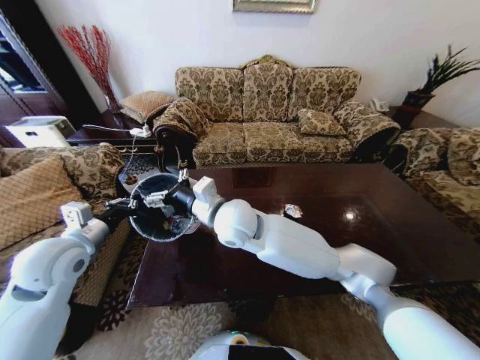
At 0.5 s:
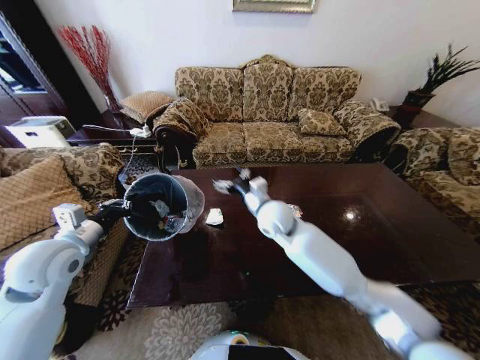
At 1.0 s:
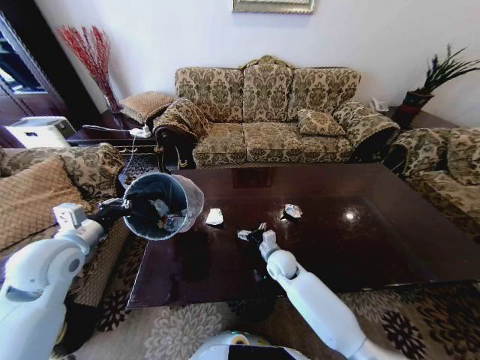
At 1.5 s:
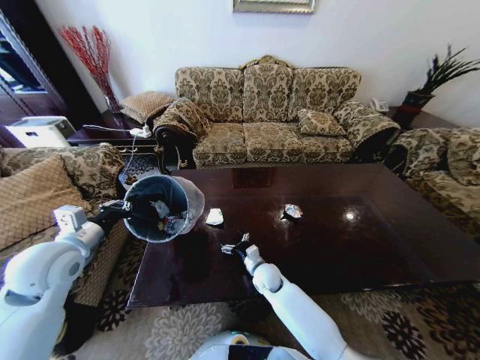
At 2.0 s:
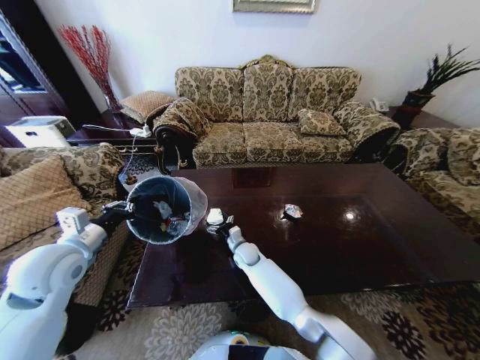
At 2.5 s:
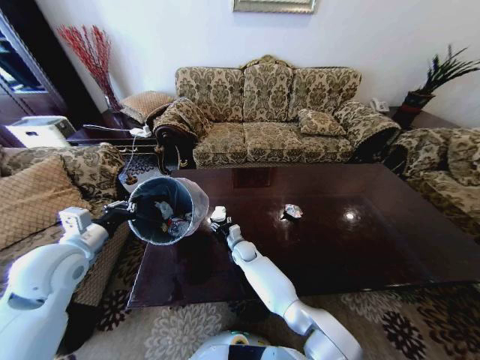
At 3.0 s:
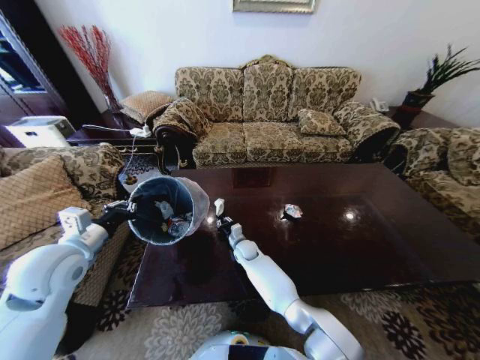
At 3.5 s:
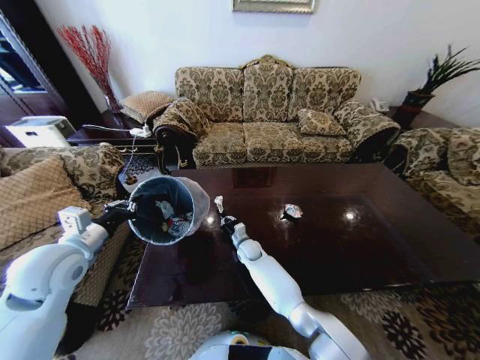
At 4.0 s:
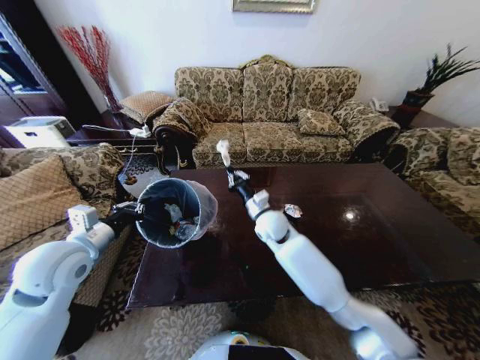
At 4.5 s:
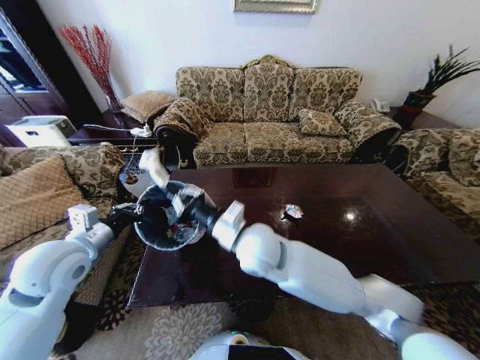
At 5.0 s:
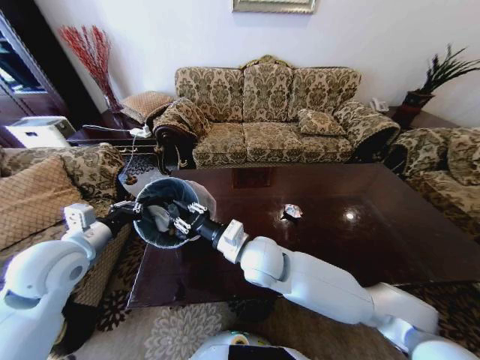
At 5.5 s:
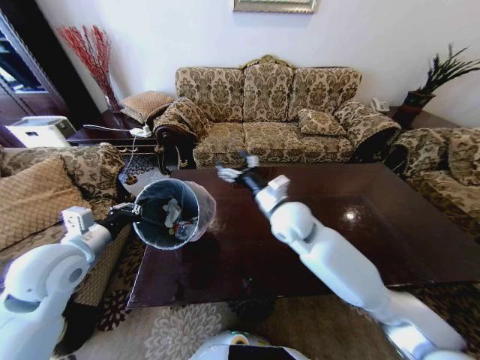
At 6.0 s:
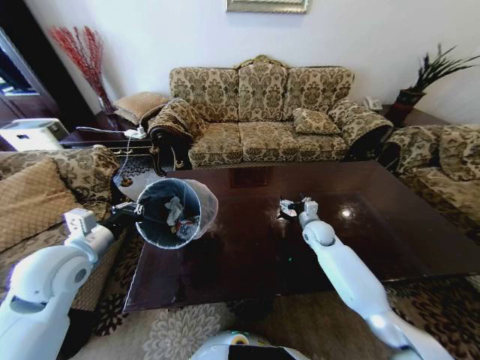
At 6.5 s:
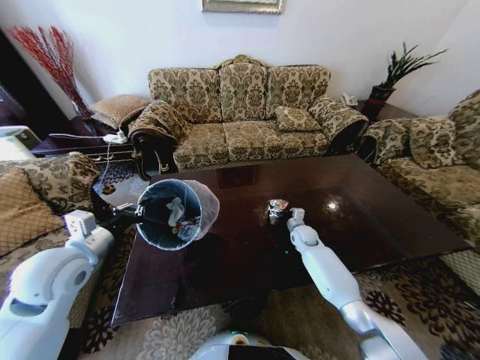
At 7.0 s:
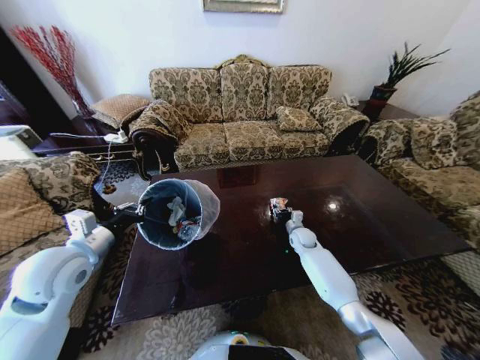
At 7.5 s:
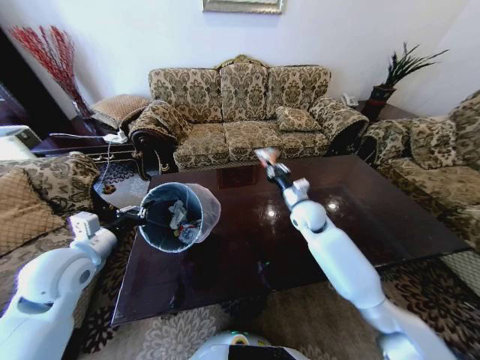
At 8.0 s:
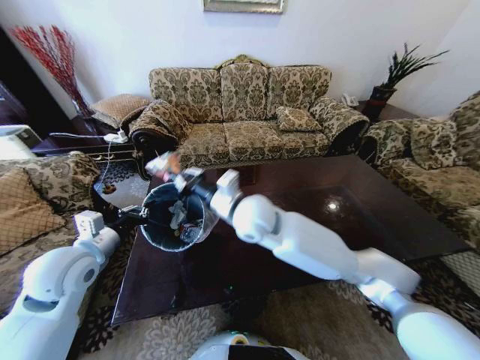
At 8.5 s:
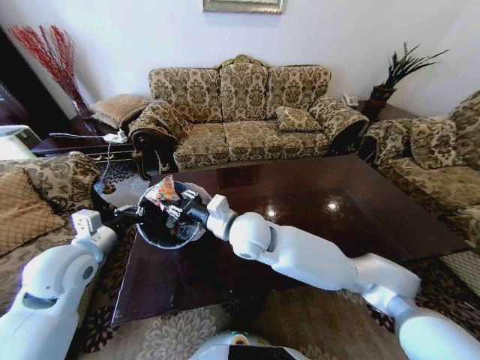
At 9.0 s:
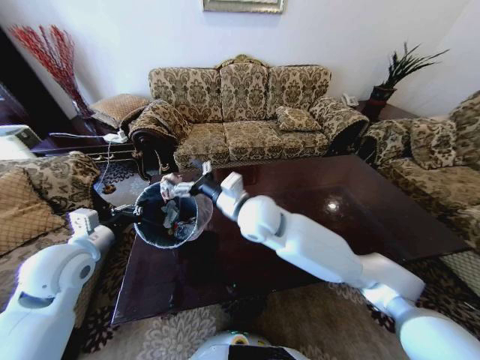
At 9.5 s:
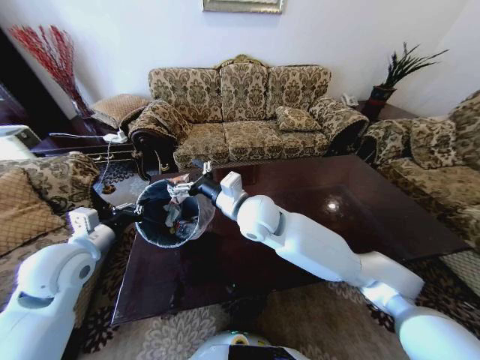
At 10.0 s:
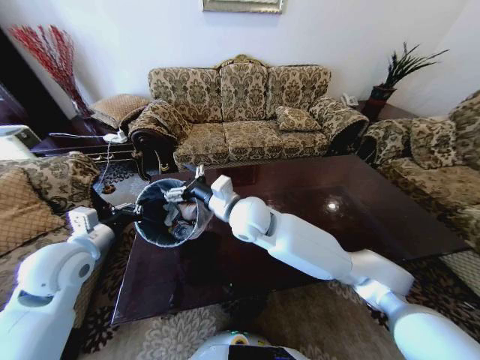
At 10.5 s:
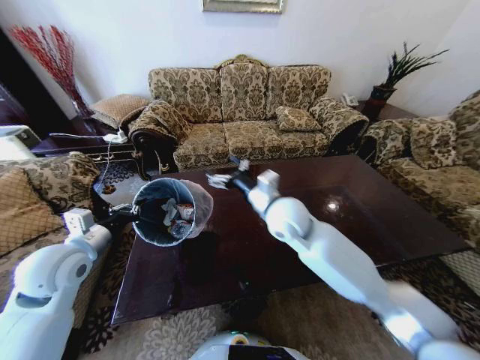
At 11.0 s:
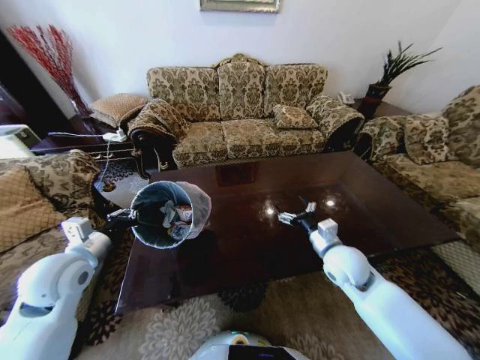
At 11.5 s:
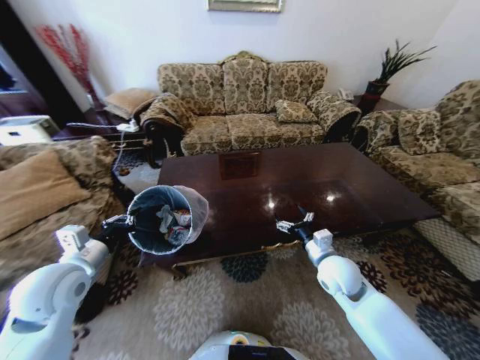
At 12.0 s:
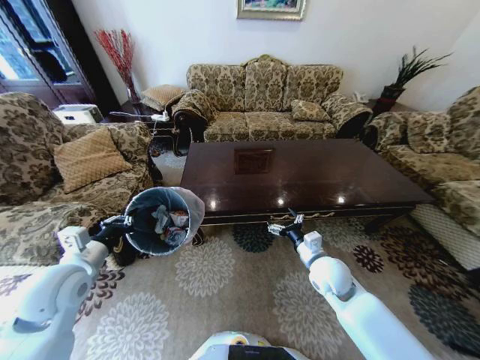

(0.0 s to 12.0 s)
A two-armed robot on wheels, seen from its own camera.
Task of the whole recording: Move to the front of the table and place the trash on the table into the trash bin.
0.0 s - 2.0 s: The right gripper shifts some 30 cm downward.
2.0 s - 4.0 s: The right gripper goes approximately 20 cm upward, and closes up.
4.0 s - 6.0 s: The right gripper shifts approximately 25 cm to the right and downward, and opens its fingers.
6.0 s - 8.0 s: The right gripper moves to the left, upward and backward, approximately 35 cm, and closes its fingers.
8.0 s - 10.0 s: The right gripper opens.
10.0 s - 12.0 s: The right gripper travels to the right and downward by about 30 cm.

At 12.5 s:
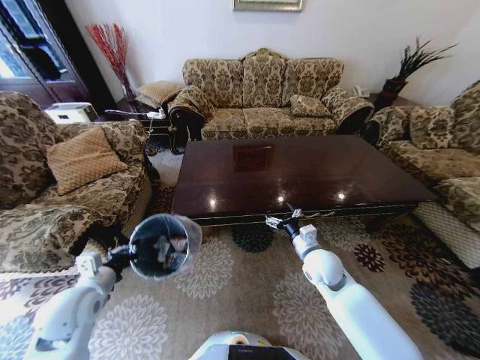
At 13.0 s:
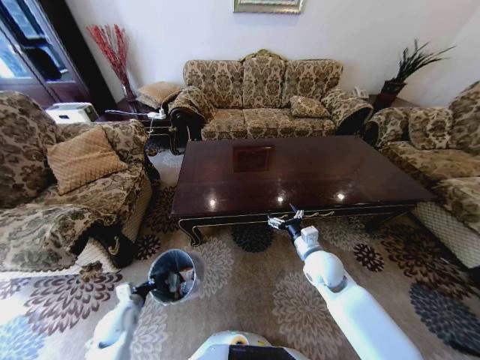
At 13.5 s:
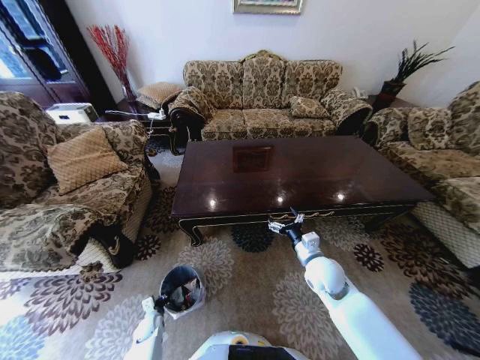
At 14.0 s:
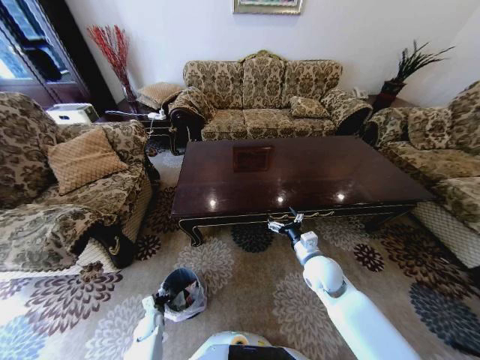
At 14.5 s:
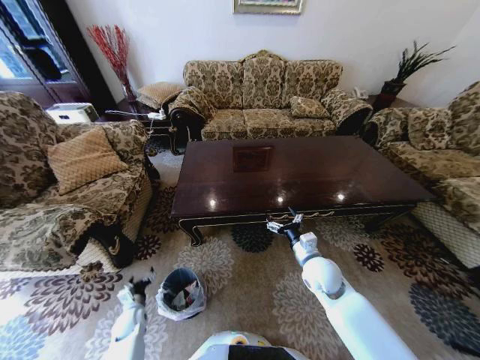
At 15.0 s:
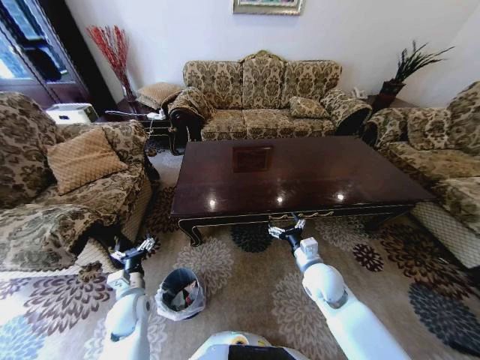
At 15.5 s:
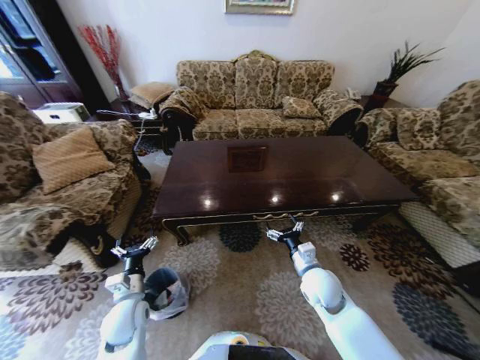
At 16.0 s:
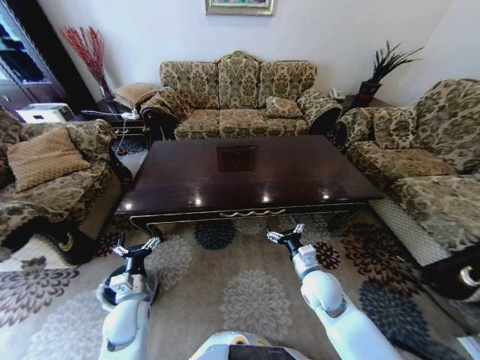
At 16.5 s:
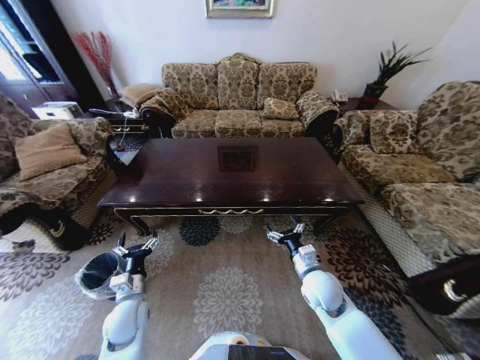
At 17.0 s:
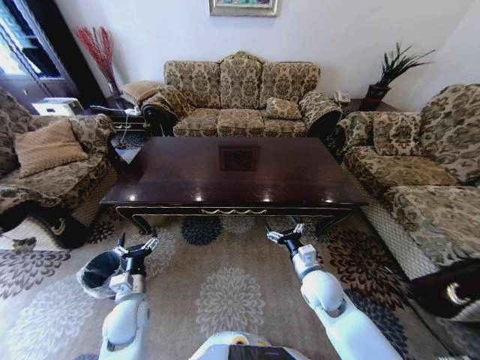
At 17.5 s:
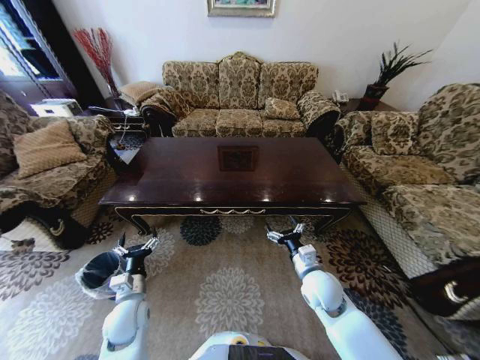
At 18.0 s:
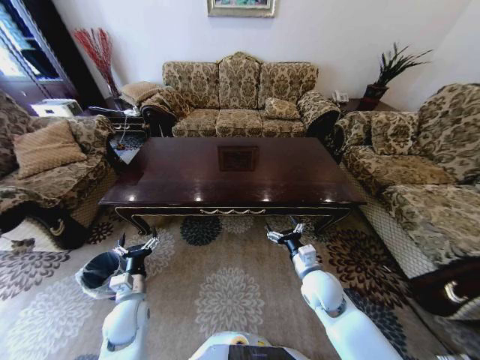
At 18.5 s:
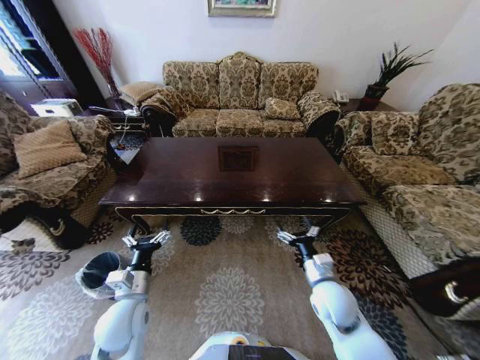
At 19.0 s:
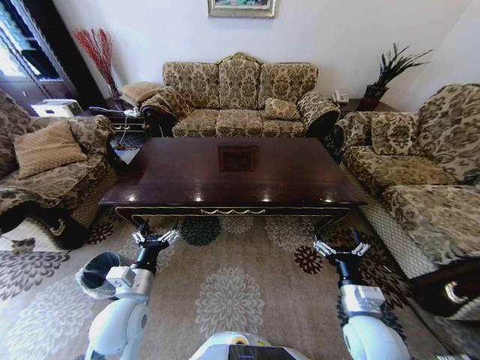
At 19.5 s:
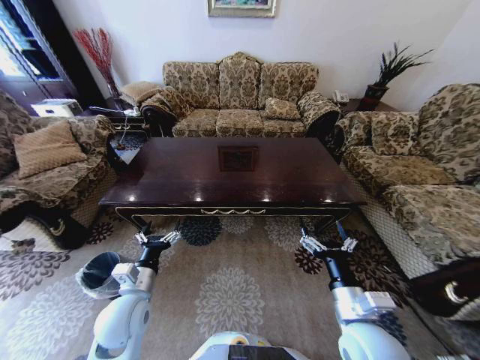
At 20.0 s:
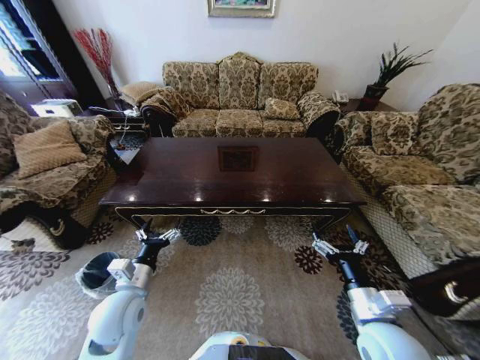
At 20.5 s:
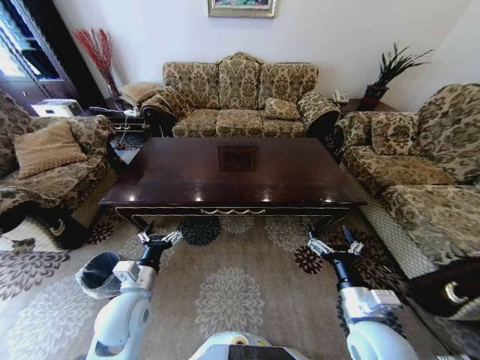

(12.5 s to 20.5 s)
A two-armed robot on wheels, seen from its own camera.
Task of the whole recording: Move to the front of the table and place the trash on the table into the trash bin.
12.5 s - 14.5 s: The left gripper shifts about 30 cm downward, and opens its fingers.
14.5 s - 16.5 s: The left gripper is displaced upward and to the right by roughly 20 cm.
16.5 s - 18.5 s: The left gripper changes place by about 5 cm.
18.5 s - 20.5 s: The right gripper heads backward and upward, covering approximately 10 cm.

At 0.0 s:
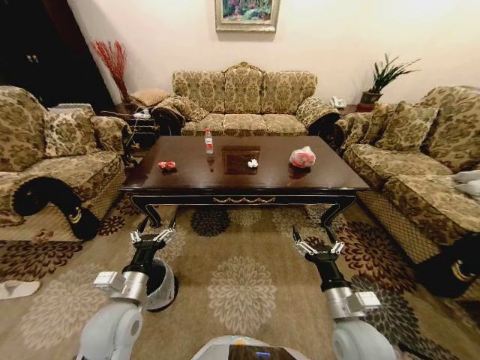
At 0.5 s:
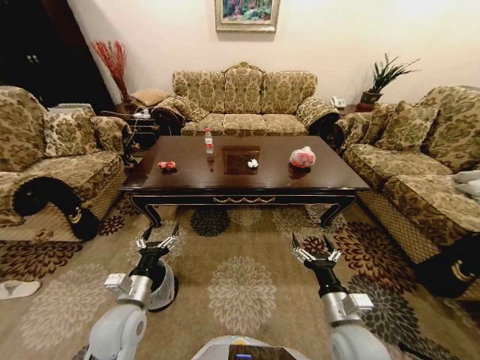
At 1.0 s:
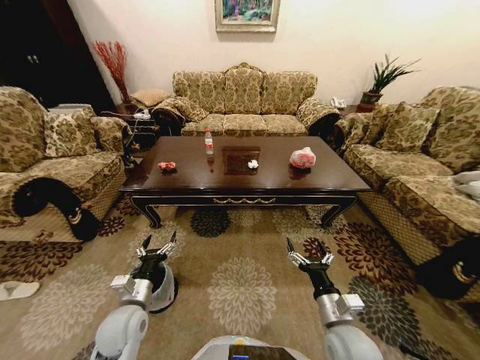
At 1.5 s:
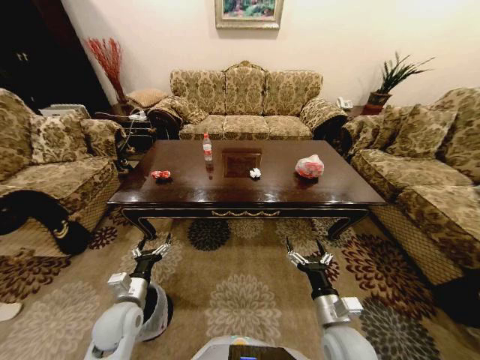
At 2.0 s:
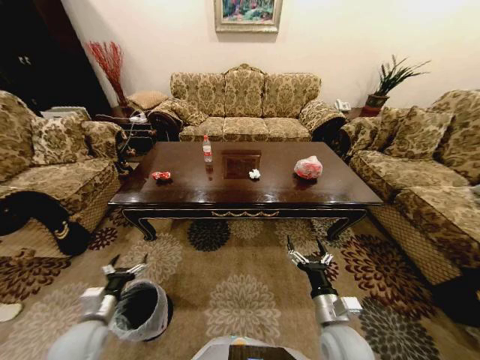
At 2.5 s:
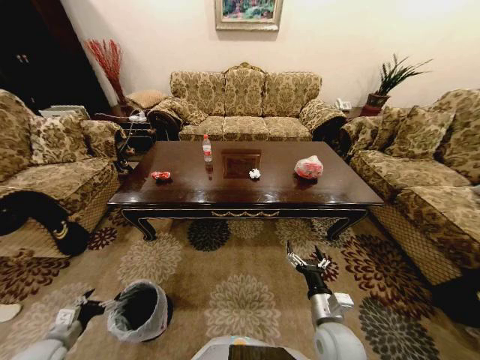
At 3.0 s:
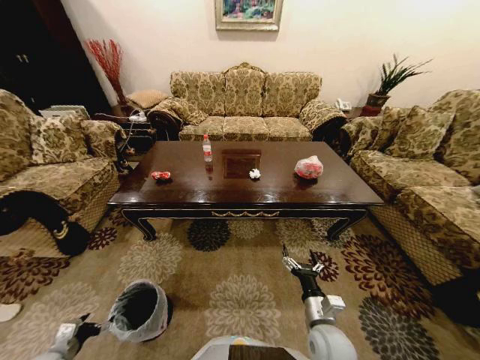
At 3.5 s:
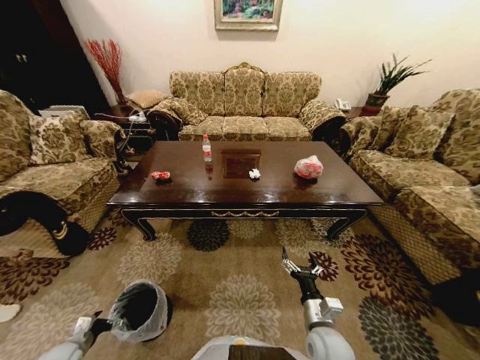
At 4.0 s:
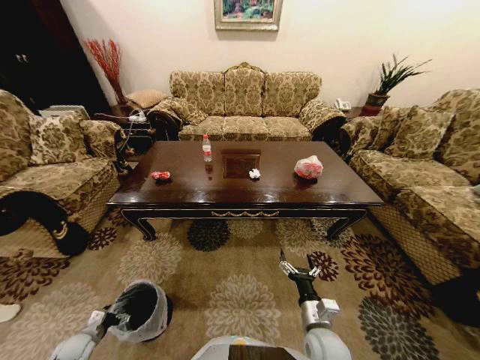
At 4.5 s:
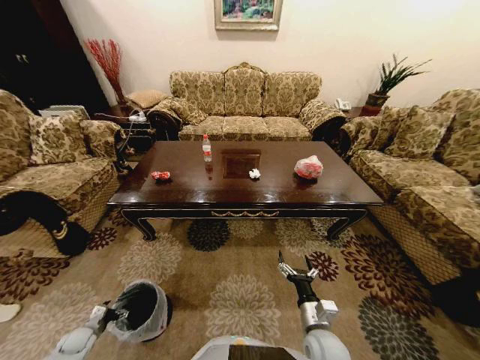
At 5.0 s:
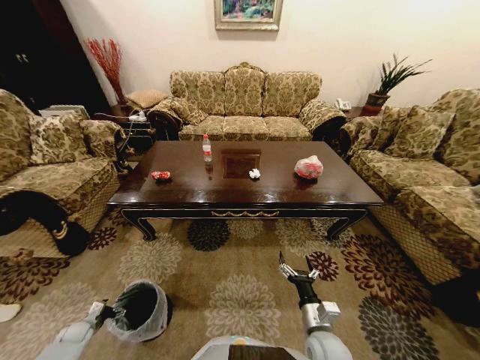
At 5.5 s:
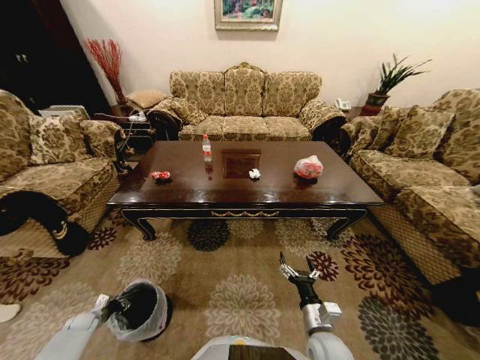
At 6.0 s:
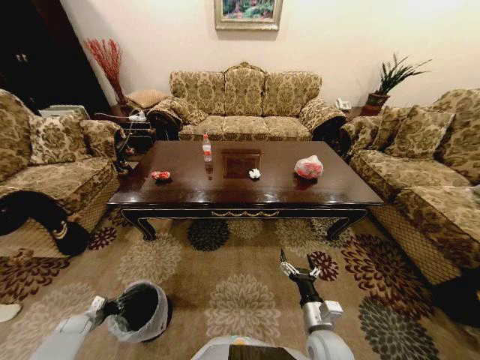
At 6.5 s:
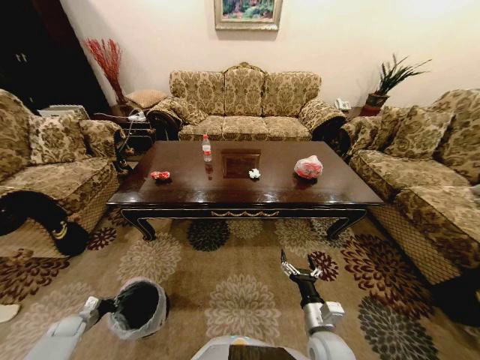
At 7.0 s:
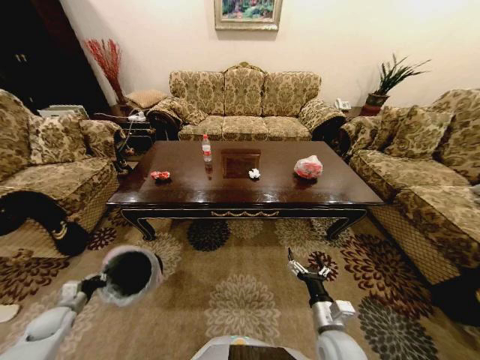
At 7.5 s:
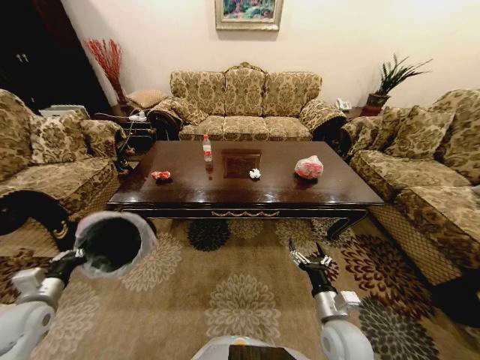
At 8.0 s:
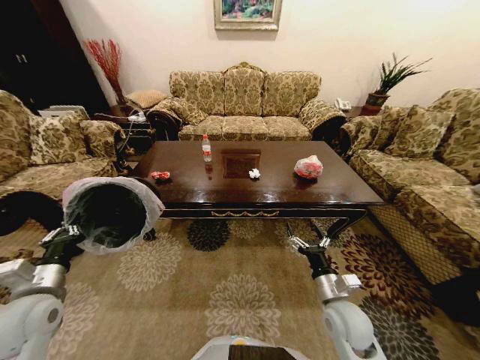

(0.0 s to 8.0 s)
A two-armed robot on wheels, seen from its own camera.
Task of the whole recording: Move to the front of the table and place the trash on the table into the trash bin.
2.0 s - 4.0 s: The left gripper goes approximately 20 cm downward and to the left. The right gripper is displaced downward by some 5 cm.
4.0 s - 6.0 s: The left gripper travels to the left and forward by some 10 cm, and closes its fingers.
6.0 s - 8.0 s: The left gripper goes about 40 cm upward and to the right; the right gripper heads upward and forward, covering some 10 cm.
